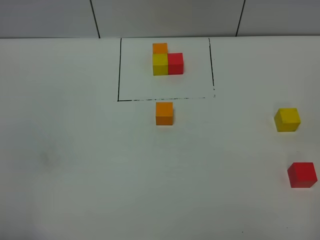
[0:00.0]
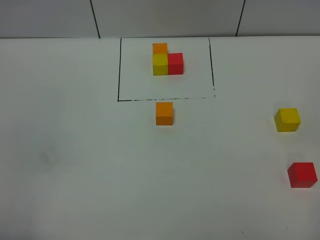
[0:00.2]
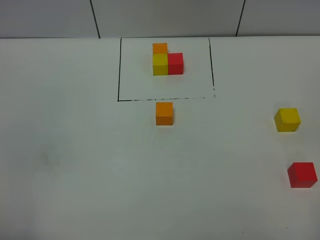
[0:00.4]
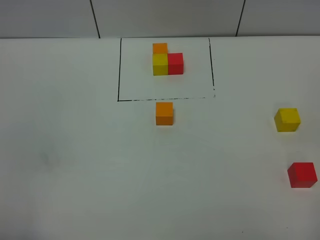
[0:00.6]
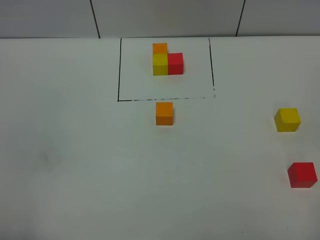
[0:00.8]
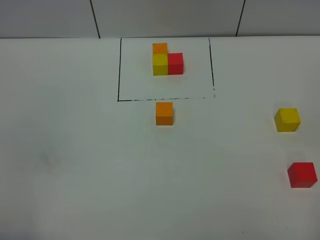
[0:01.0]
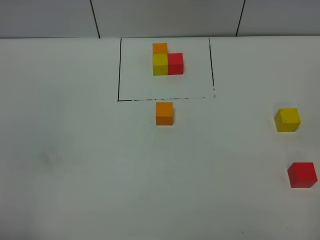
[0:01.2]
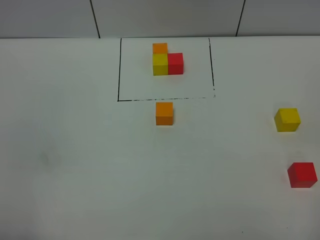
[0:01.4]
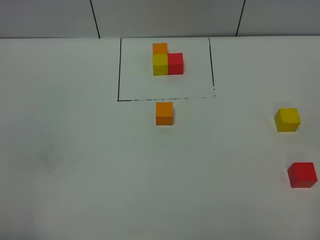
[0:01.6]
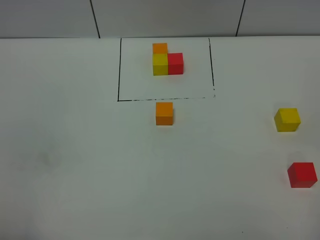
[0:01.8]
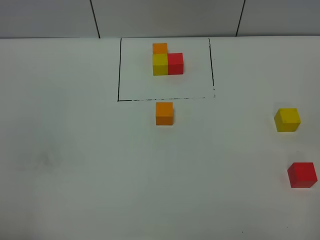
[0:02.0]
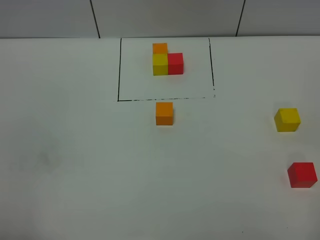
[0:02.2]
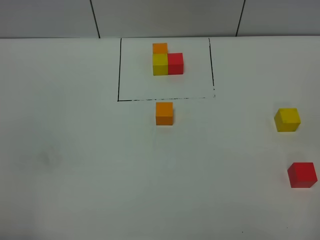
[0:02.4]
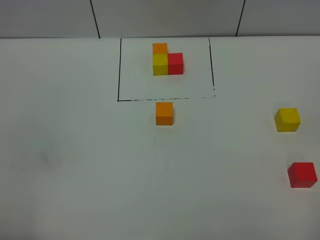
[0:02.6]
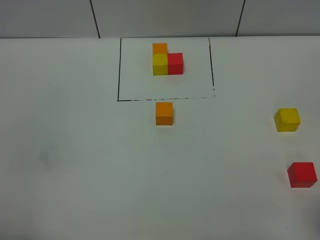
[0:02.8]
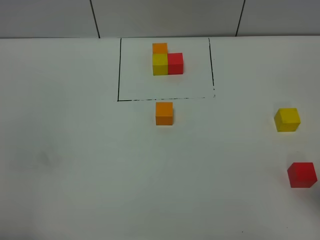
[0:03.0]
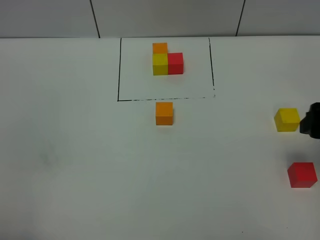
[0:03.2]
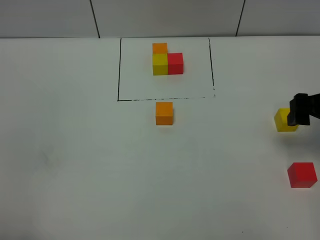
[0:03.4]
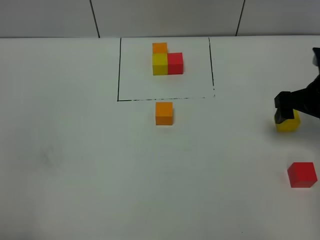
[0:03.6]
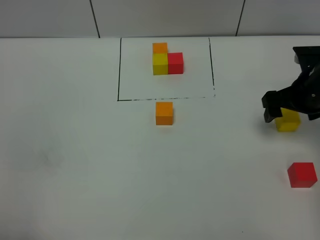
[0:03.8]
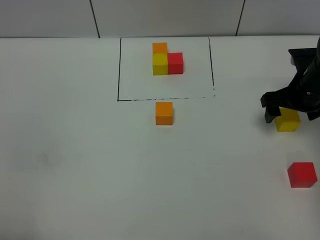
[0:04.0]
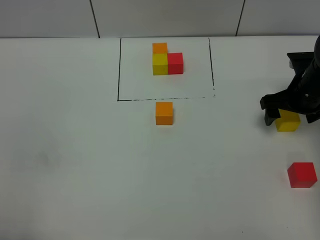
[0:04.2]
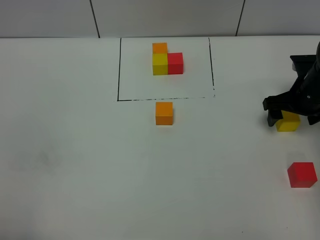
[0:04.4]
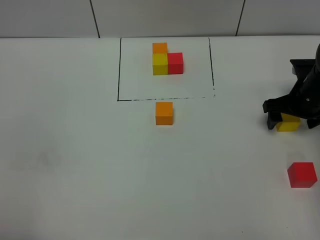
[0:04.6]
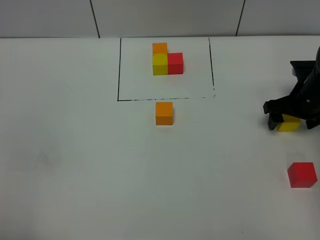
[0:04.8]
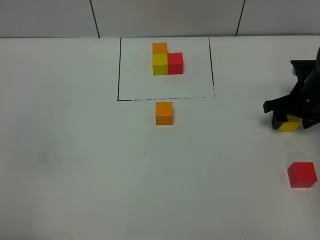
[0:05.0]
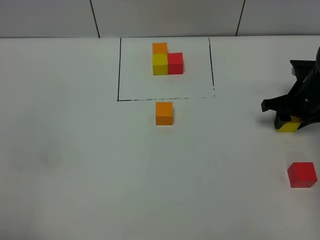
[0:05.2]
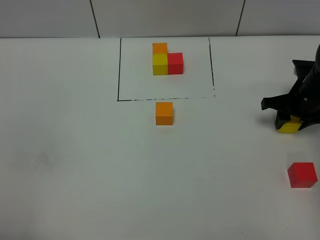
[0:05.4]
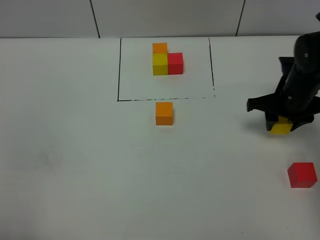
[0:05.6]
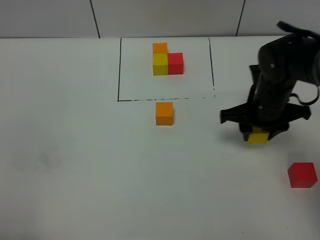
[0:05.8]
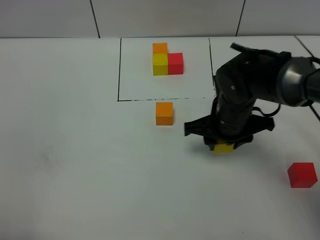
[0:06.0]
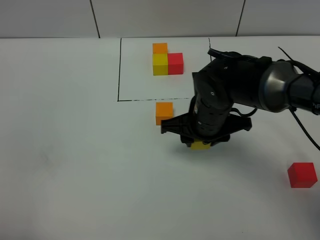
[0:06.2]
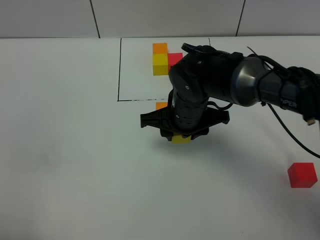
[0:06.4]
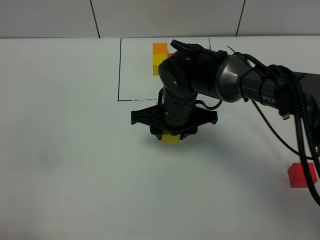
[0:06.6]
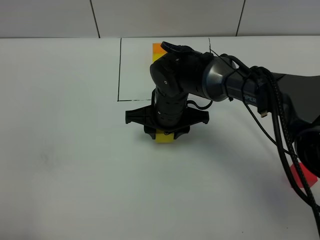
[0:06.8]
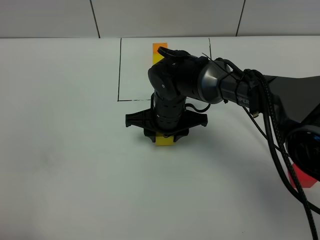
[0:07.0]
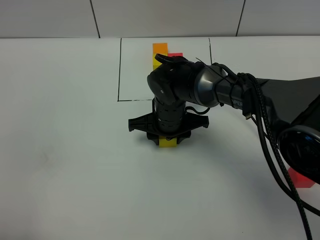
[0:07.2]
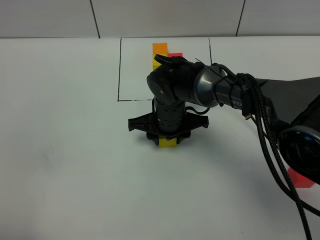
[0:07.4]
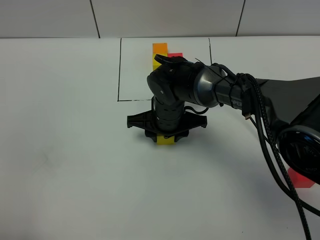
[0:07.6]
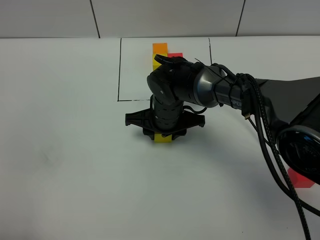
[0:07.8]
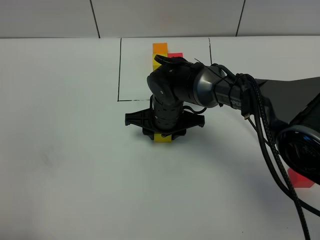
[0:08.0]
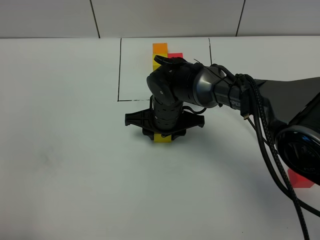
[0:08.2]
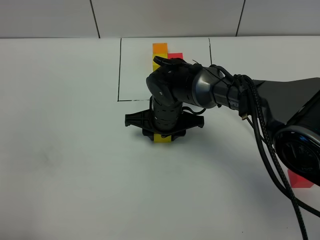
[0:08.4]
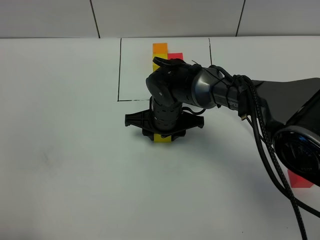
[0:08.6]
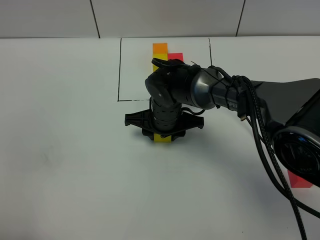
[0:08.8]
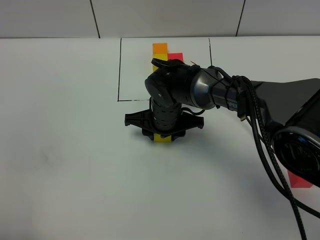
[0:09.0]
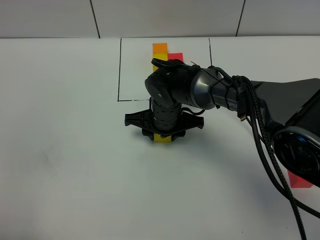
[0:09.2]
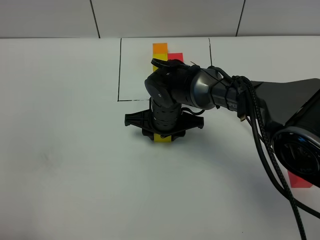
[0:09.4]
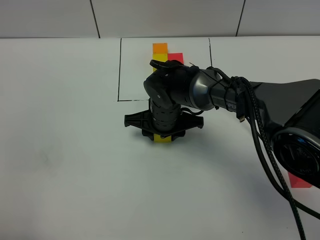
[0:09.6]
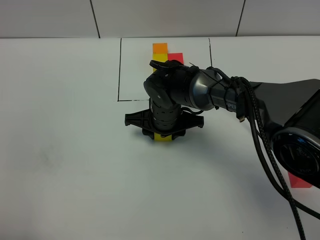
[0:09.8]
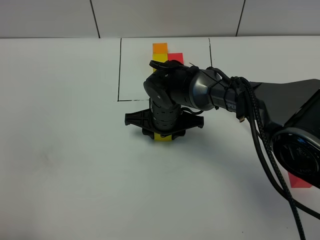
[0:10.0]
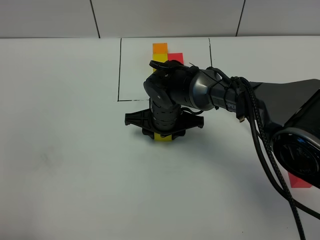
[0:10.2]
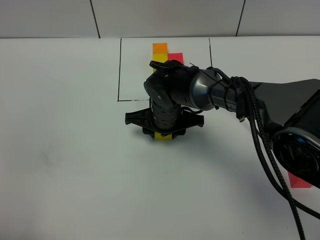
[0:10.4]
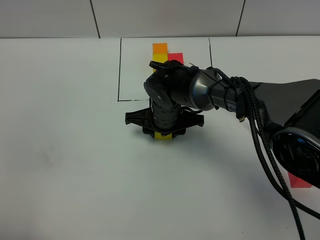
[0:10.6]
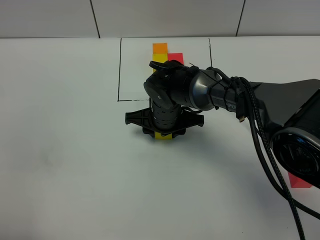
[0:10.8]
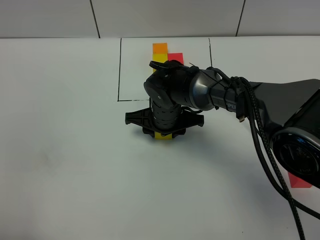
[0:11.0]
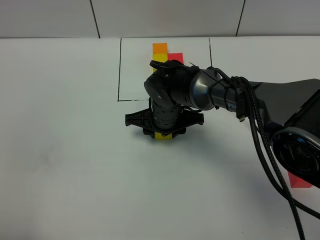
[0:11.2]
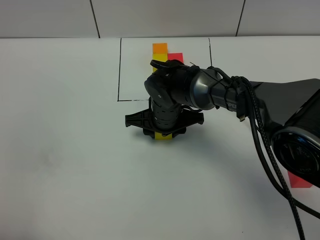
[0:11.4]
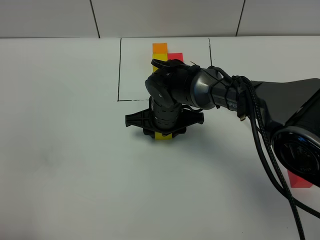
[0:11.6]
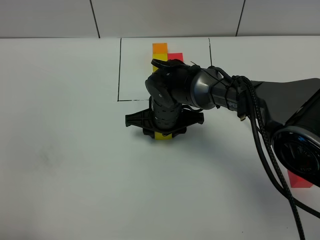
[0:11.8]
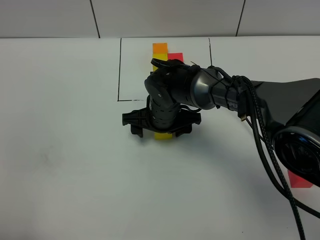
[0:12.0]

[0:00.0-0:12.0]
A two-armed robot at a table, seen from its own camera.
Task of the whole recording: According to the building block template in front, assemble the scattered blocks together.
Step, 0:00.0 to 0:11.8: Put the yellow build block on the behind of the orange build block.
0:00.0 to 0:01.6: Both grippers stay put.
0:03.0 to 0:04.4: The right gripper is displaced forward and downward by some 30 cm.
0:04.4 to 0:06.0: The right gripper shifts roughly 20 cm to the left, and closes its fingers.
0:06.0 to 0:07.6: The right gripper moves to the left, roughly 10 cm.
0:07.6 to 0:10.4: Both grippers stay about where they are.
0:10.4 to 0:12.0: The right gripper opens its fingers.

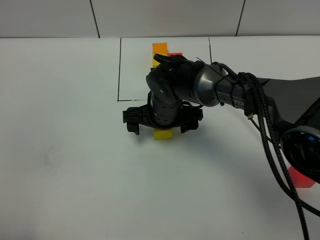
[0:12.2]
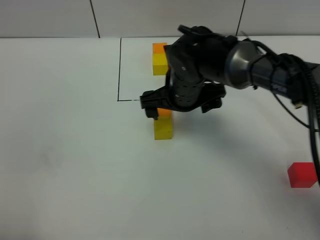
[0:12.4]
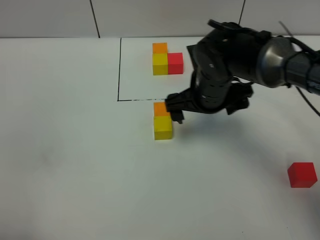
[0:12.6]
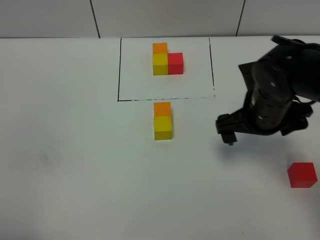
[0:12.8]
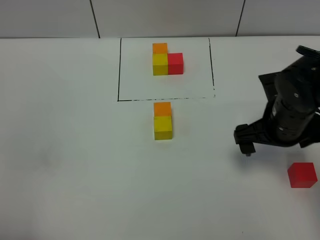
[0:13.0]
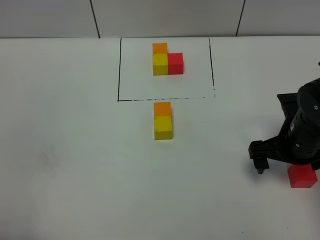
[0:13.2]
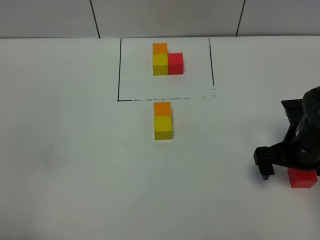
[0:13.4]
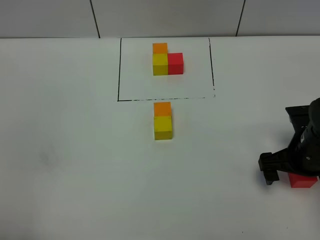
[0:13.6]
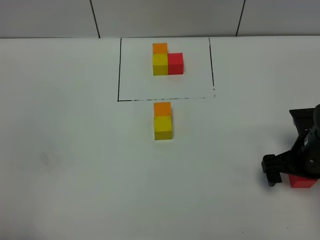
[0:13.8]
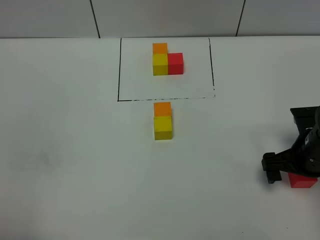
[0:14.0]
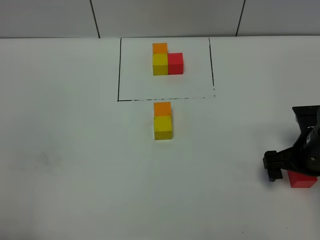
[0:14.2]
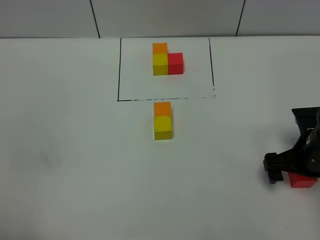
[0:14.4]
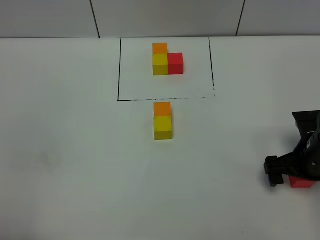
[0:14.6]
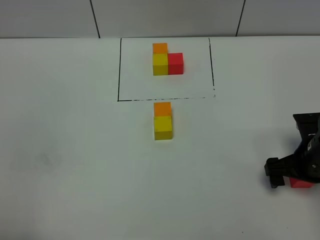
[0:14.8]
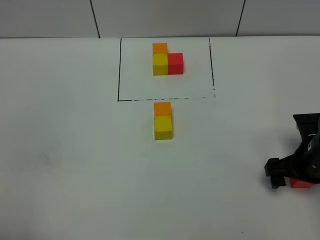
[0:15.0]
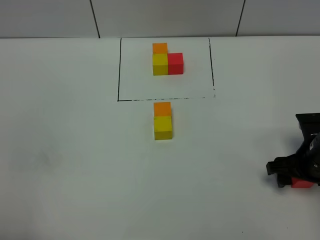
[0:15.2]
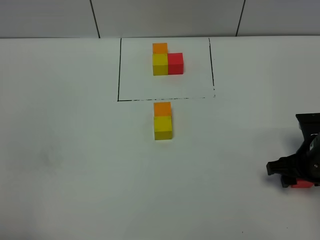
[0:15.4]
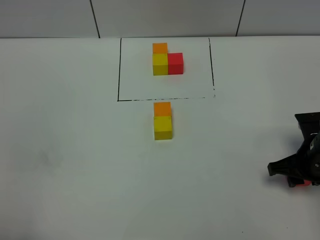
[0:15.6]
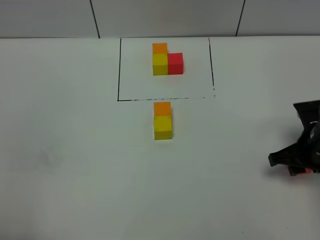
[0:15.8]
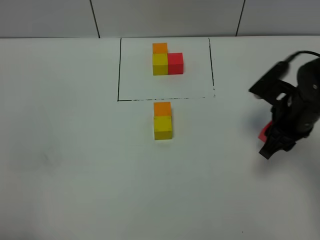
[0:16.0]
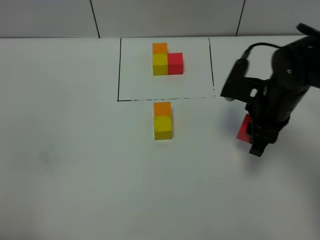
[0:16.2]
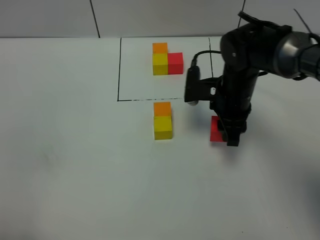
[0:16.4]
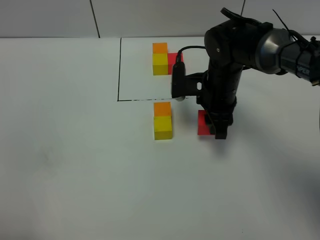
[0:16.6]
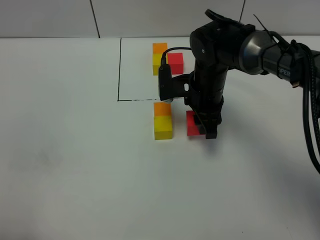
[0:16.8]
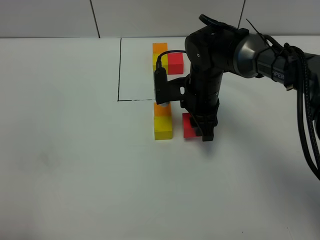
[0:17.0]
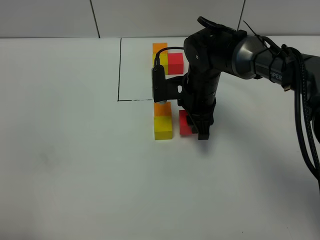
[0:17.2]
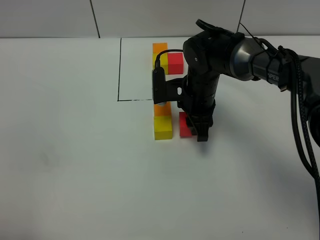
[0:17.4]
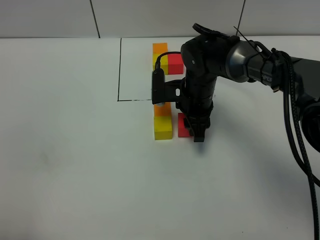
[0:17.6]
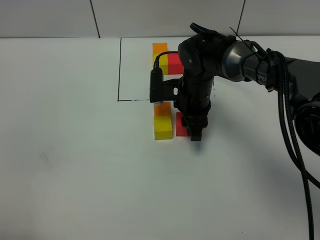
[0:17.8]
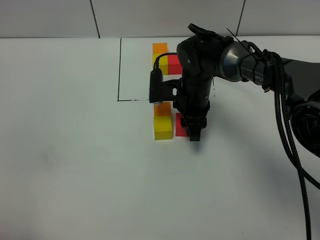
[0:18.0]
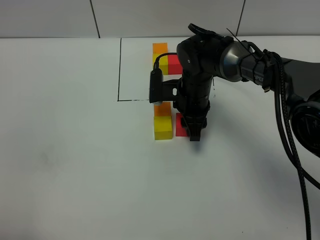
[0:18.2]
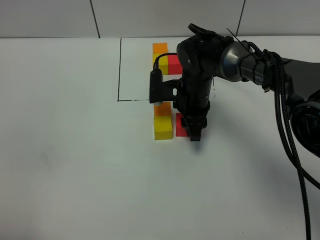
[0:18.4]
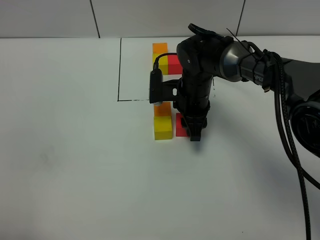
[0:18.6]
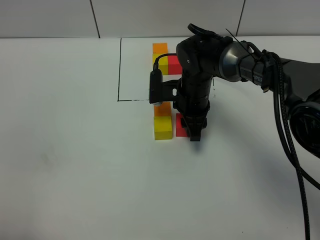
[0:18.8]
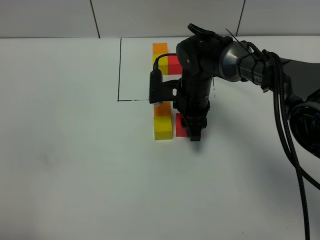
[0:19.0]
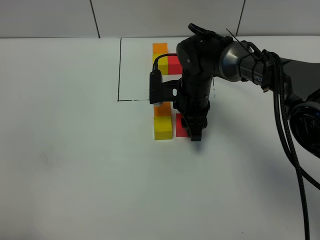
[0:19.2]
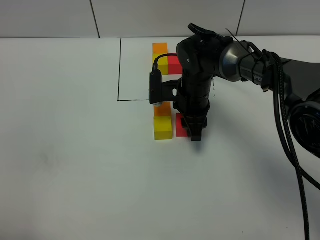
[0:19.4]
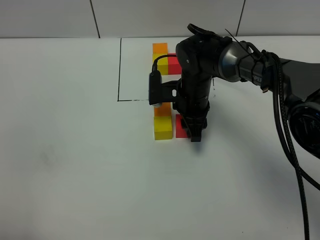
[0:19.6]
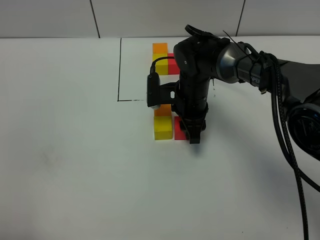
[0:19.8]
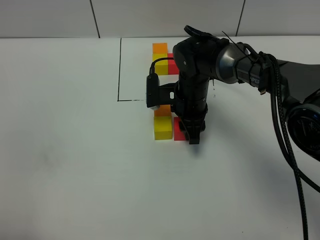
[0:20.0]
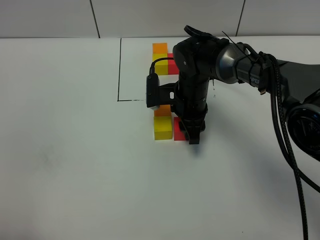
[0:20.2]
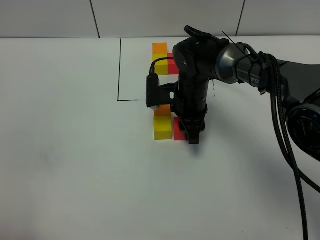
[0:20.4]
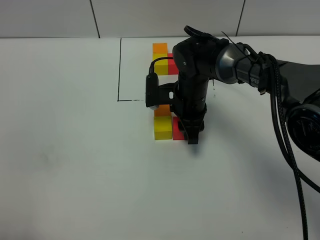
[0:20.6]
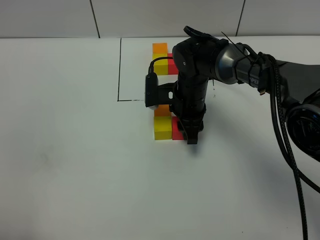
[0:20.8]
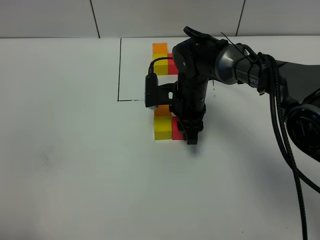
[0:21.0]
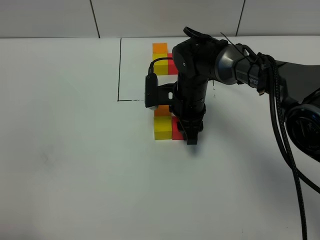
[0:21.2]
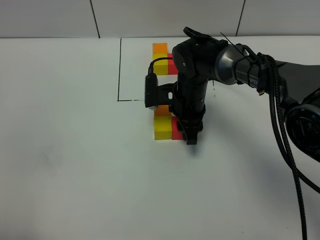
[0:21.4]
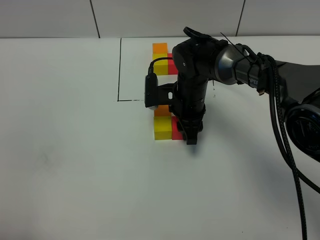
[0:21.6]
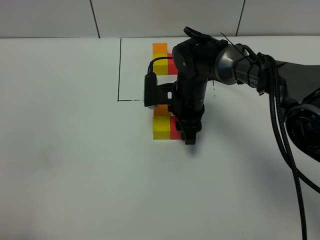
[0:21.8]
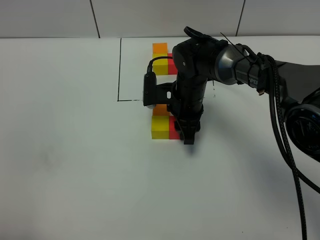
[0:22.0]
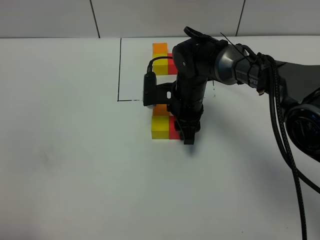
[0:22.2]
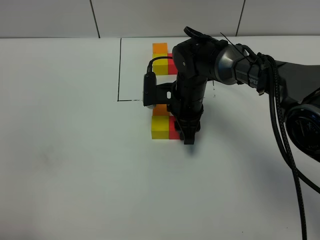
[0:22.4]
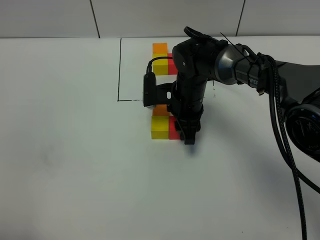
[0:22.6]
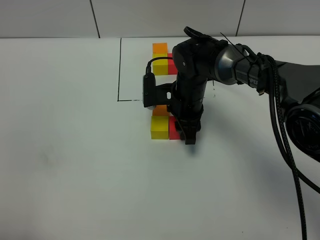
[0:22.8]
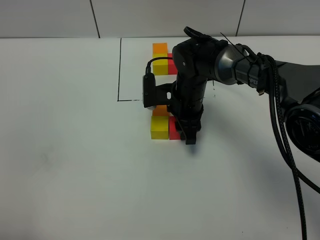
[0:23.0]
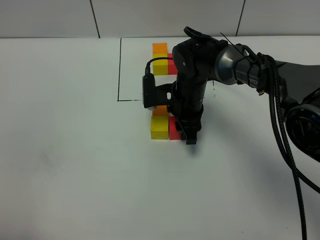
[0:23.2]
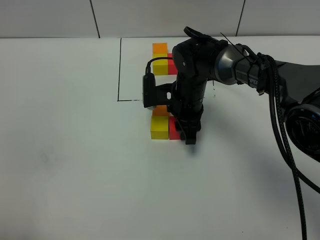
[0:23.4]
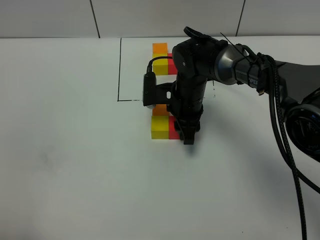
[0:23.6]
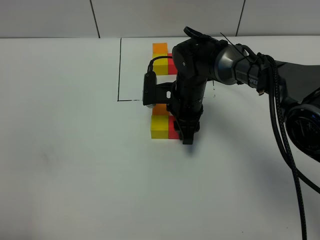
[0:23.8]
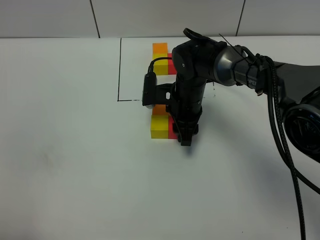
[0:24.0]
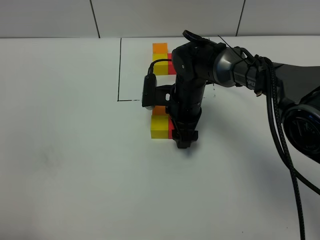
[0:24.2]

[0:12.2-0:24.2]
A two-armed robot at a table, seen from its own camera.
Task of the whole recording: According to the building block template in front, assemble the scattered blocks together.
Step, 0:12.2 to 0:23.6: Put the red build block on the right of the yellow build block.
0:12.2 to 0:13.8: The right gripper travels to the right and backward by approximately 25 cm.
0:13.8 to 0:15.2: The right gripper closes its fingers.
0:15.2 to 0:16.6: The right gripper travels to the left and forward by about 20 cm, and closes up.
0:16.6 to 0:18.2: The right gripper changes place by about 5 cm.
0:18.2 to 0:22.6: Both grippers stay about where they are.
0:22.6 to 0:24.2: The right gripper opens.
